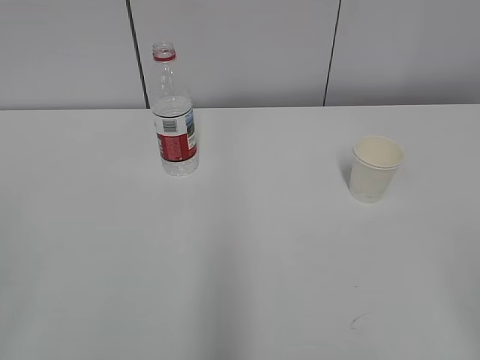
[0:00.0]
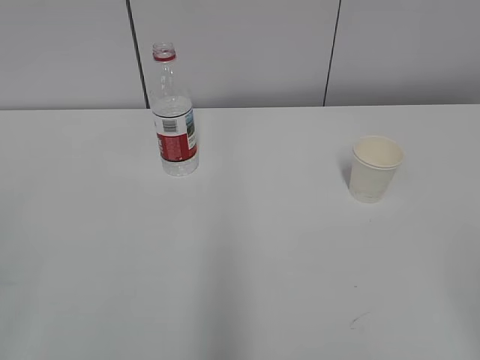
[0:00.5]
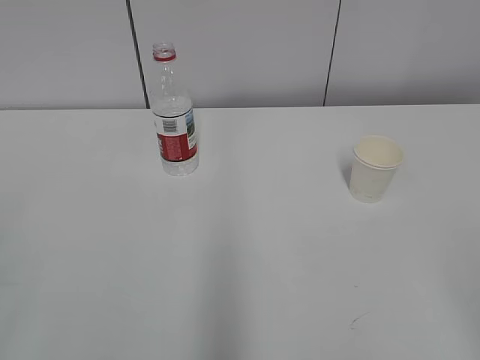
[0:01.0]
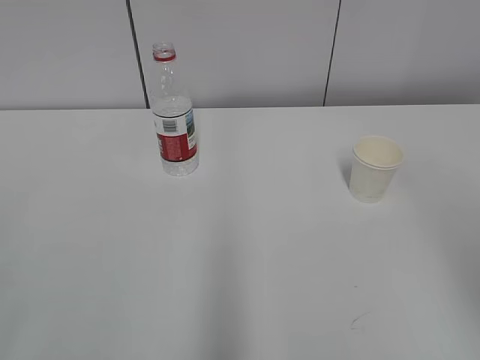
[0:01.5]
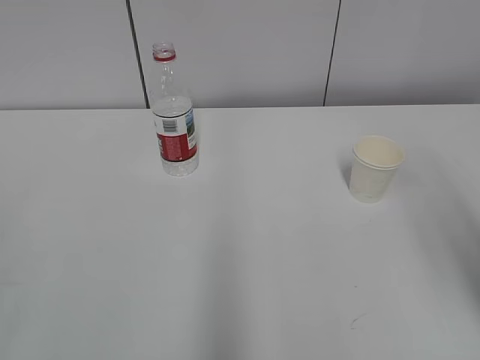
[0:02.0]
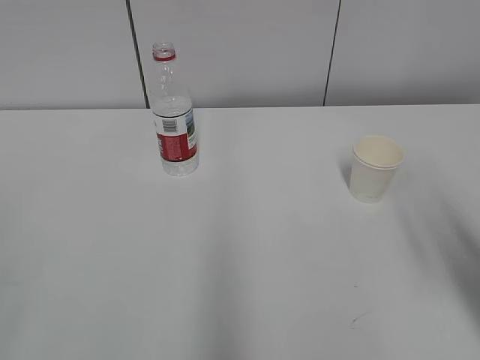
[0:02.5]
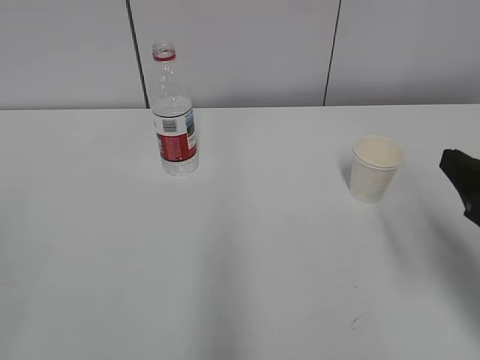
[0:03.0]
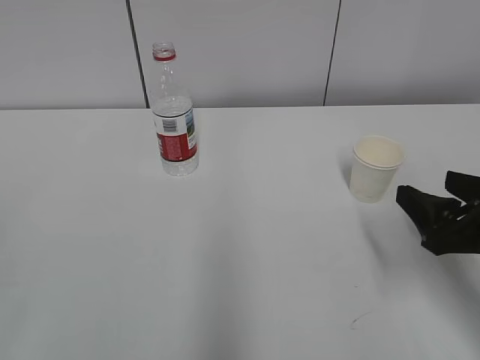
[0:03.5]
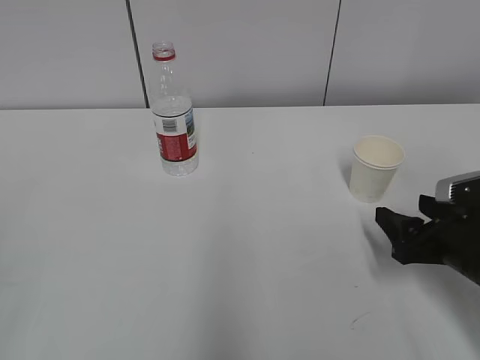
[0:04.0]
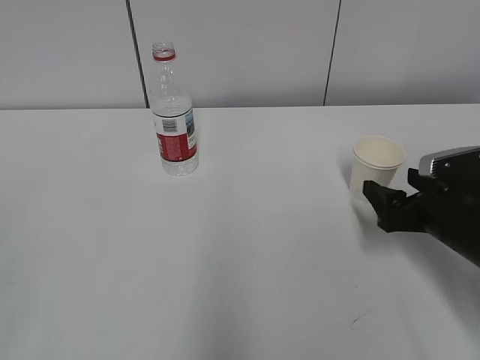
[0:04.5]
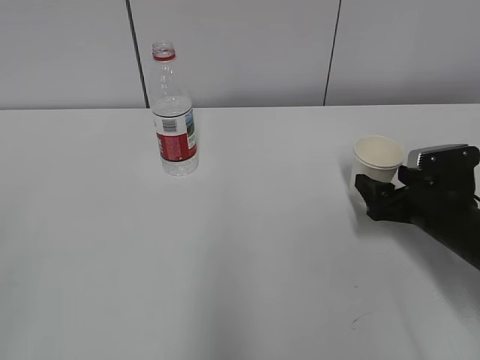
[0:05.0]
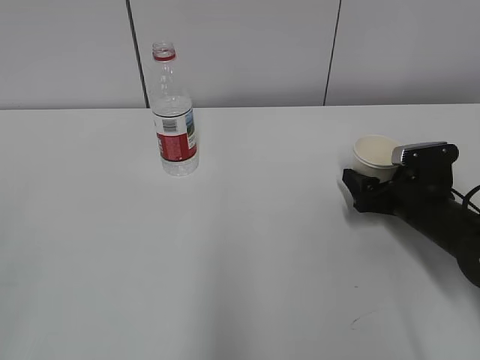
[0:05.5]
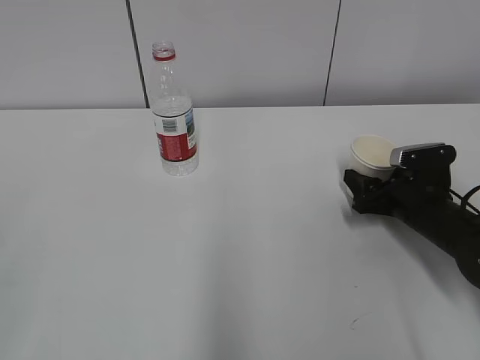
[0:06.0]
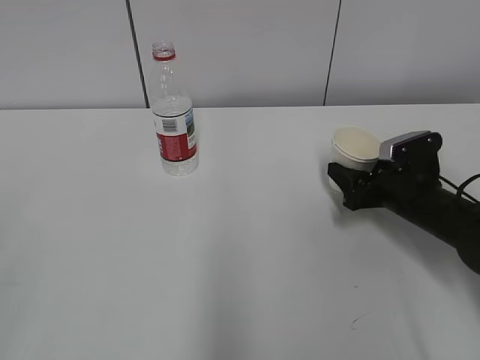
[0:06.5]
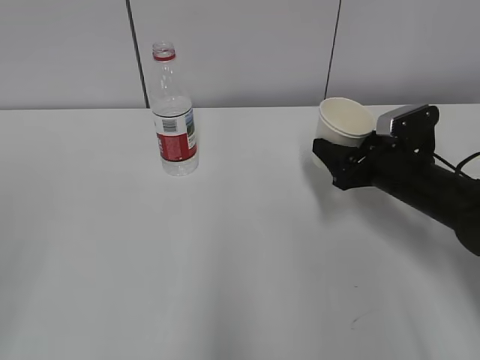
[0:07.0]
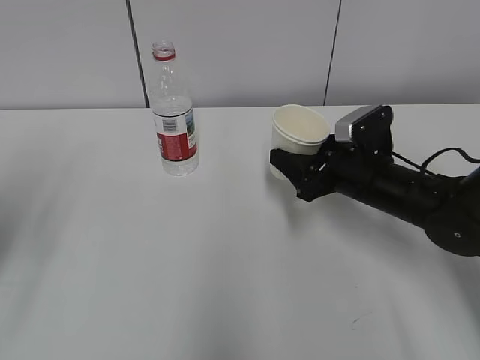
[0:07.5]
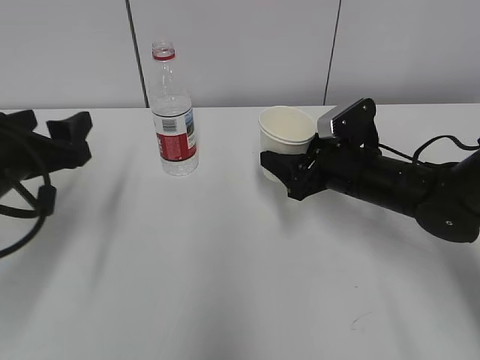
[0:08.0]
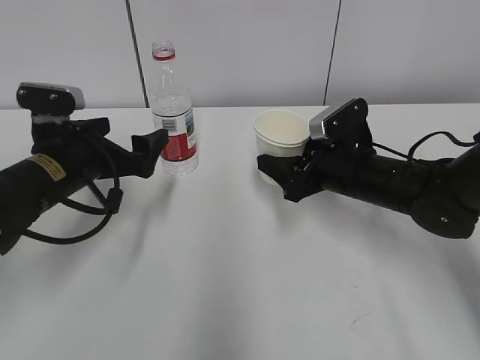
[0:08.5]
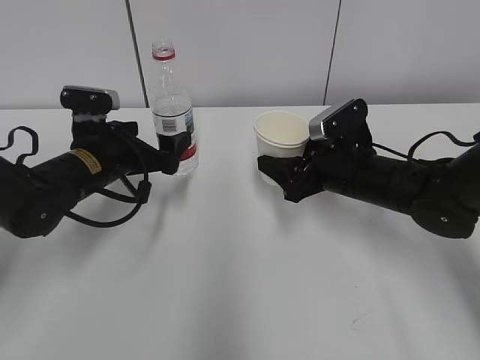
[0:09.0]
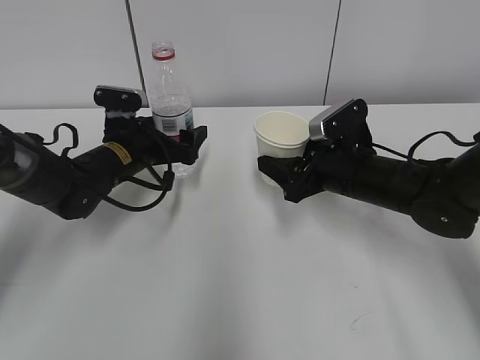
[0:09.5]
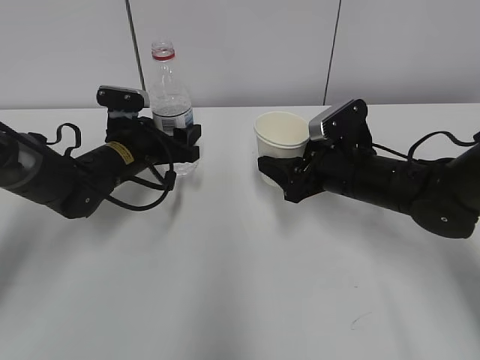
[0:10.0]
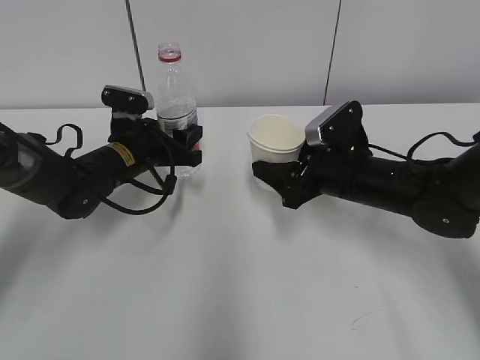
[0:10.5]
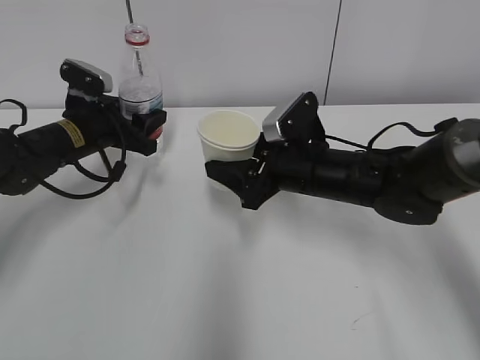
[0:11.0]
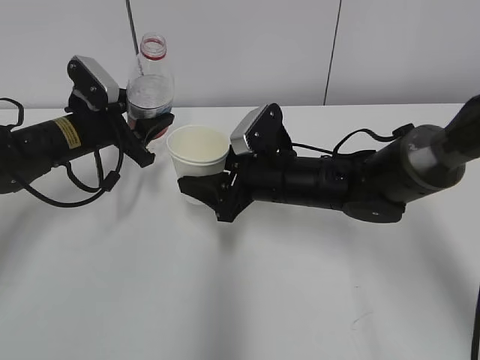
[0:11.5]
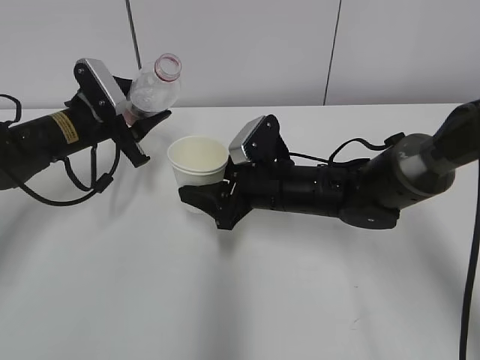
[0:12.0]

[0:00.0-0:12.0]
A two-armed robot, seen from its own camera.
Step, 0:00.0 to 0:05.0: Grab the paper cup with the right hand.
Step, 0:05.5 to 0:08.0: Grab the water bottle with the left hand.
Step, 0:08.5 to 0:11.5: Lift the paper cup with the right hand.
0:02.0 to 0:04.0: The right gripper heads downward and forward, covering about 25 cm.
0:04.0 to 0:06.0: The right gripper travels forward by roughly 10 cm, and closes.
0:06.0 to 0:08.0: The right gripper goes roughly 10 cm to the left and upward. Meanwhile the left gripper is displaced forward by roughly 30 cm.
0:08.0 to 0:10.0: The left gripper is displaced forward, downward and to the right by roughly 20 cm, and opens and closes again.
0:10.0 to 0:12.0: The left gripper shifts some 5 cm to the left. Meanwhile the right gripper heads to the left, covering roughly 10 cm.

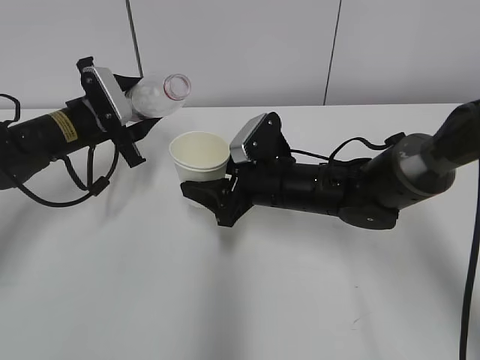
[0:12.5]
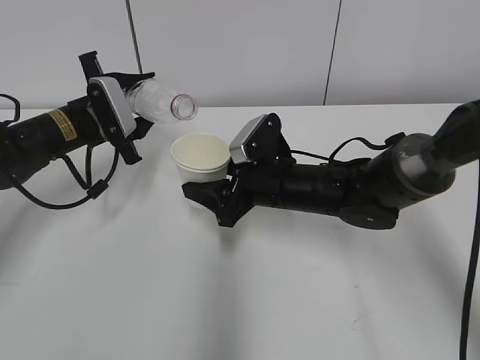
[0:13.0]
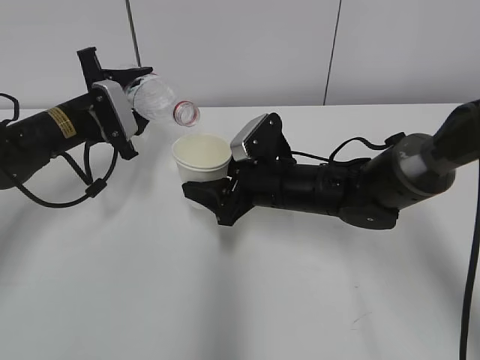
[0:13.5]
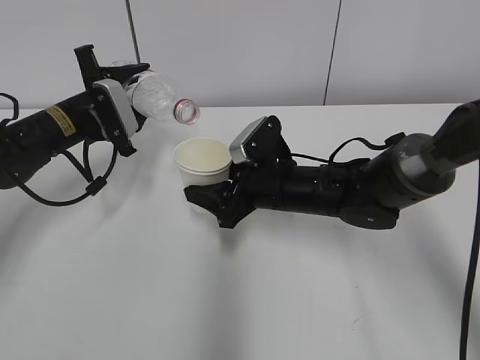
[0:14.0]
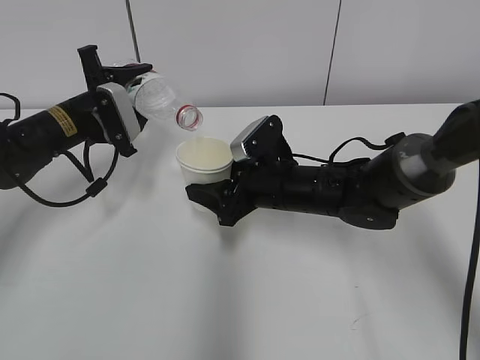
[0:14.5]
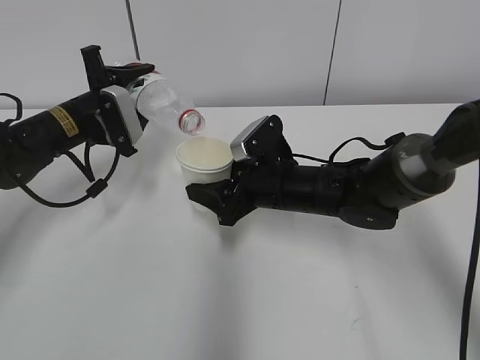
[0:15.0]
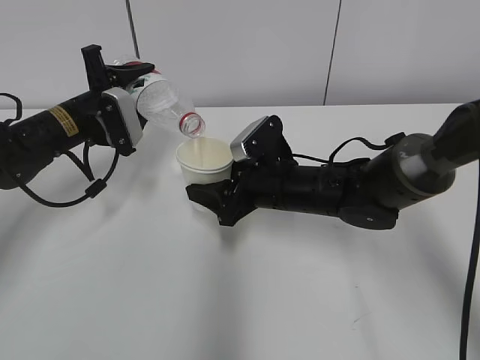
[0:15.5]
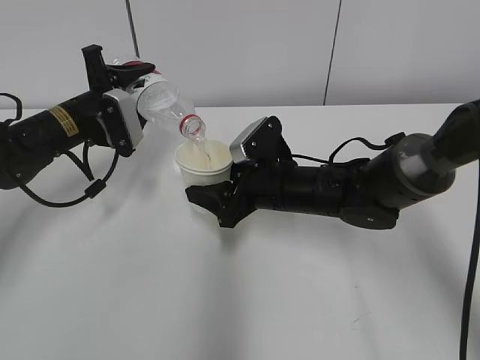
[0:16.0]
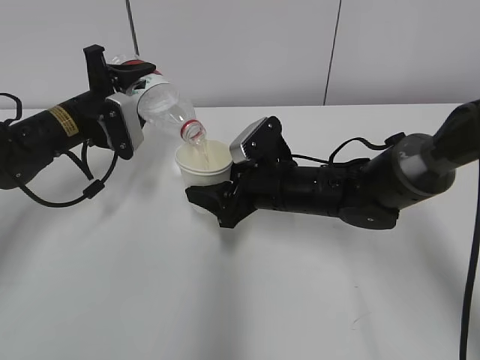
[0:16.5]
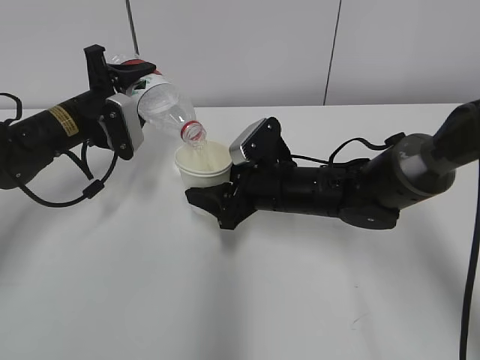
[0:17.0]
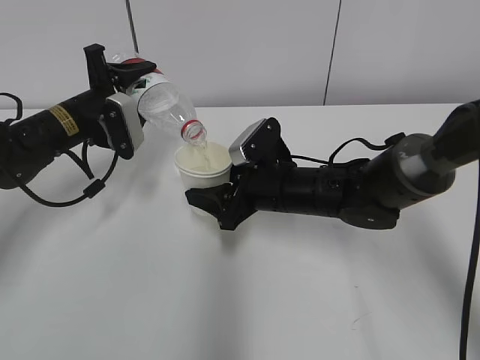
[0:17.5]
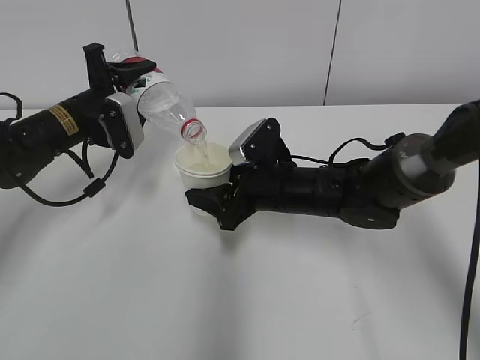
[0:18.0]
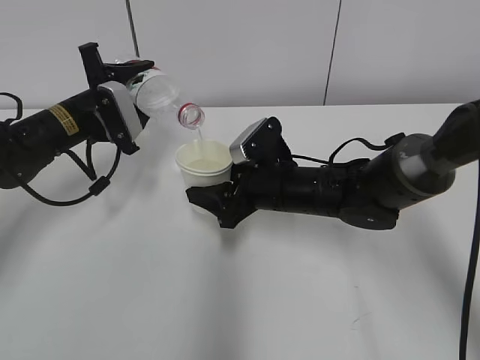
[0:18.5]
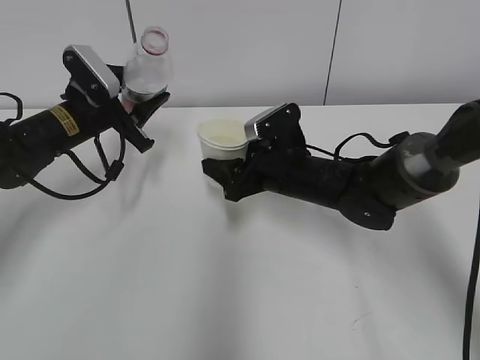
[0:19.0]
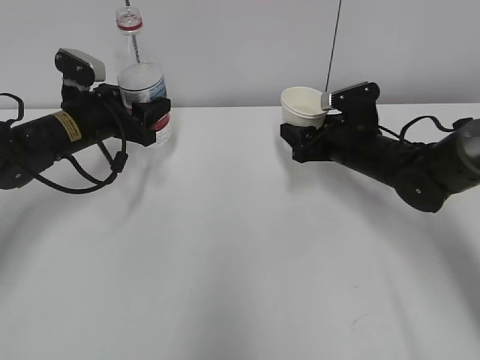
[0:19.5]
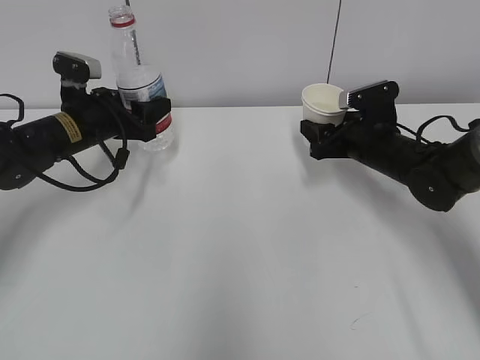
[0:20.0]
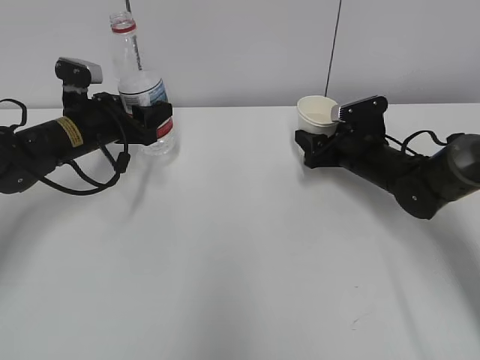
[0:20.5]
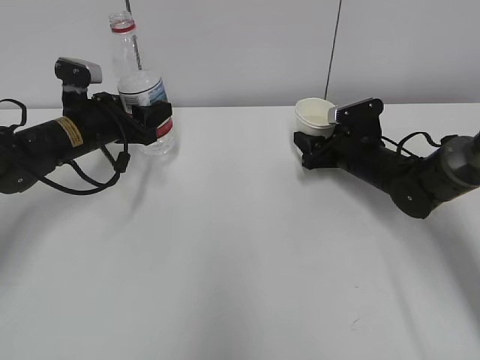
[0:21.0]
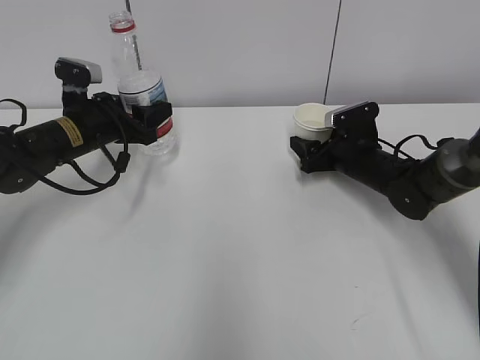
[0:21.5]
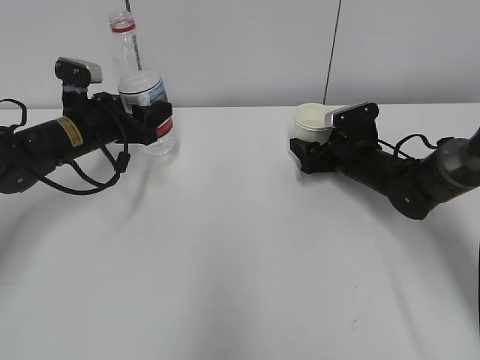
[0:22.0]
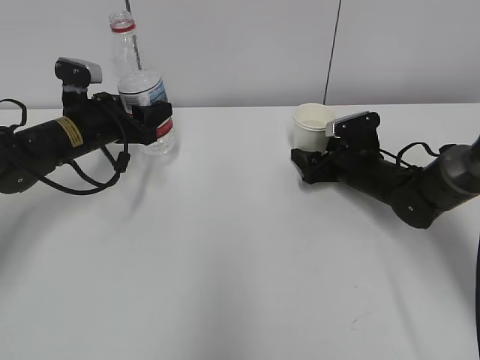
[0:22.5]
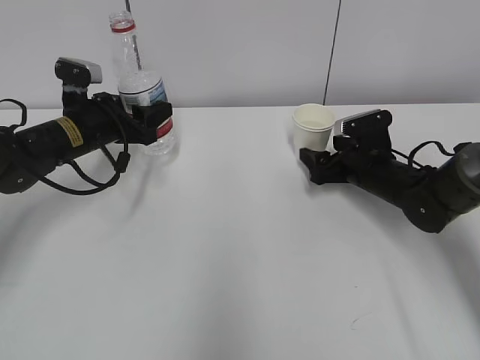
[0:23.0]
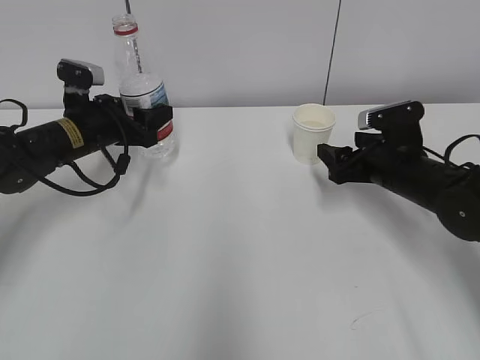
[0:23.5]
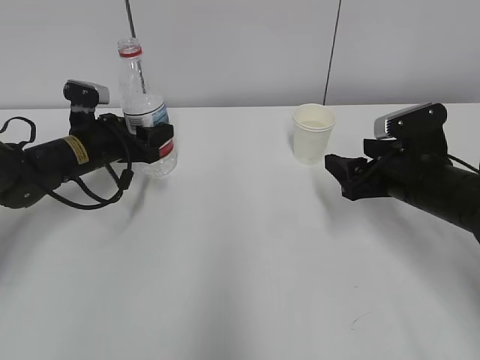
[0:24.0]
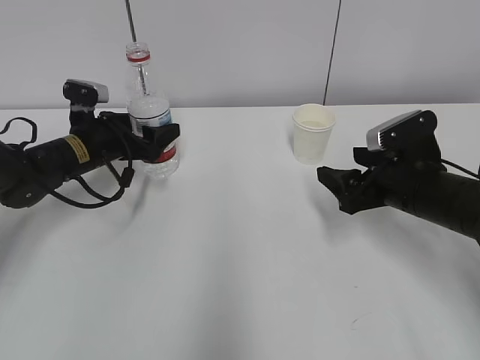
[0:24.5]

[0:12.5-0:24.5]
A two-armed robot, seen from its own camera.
Step, 0:12.5 to 0:15.5: Fill water with the right hand.
Step, 0:12.5 to 0:15.5: Pour water with the left hand.
0:14.5 to 0:18.5: The grippers move only a little.
0:18.5 to 0:20.5: The right gripper goes roughly 15 cm to the right and forward.
0:20.5 to 0:22.5: The right gripper opens its fingers.
0:22.5 to 0:24.5: The left gripper opens up, while the right gripper is displaced backward and upward by roughly 15 cm.

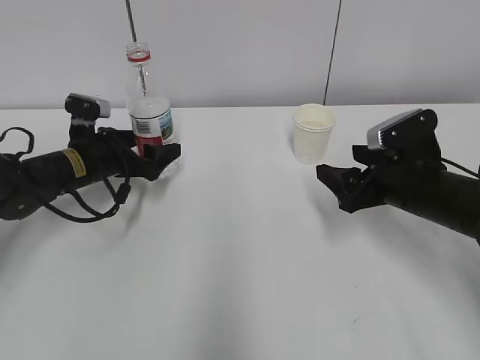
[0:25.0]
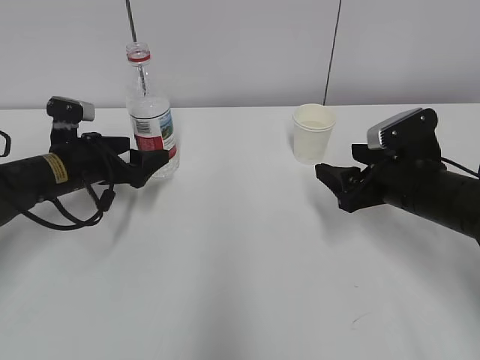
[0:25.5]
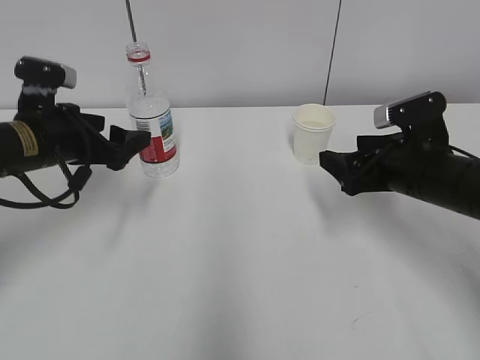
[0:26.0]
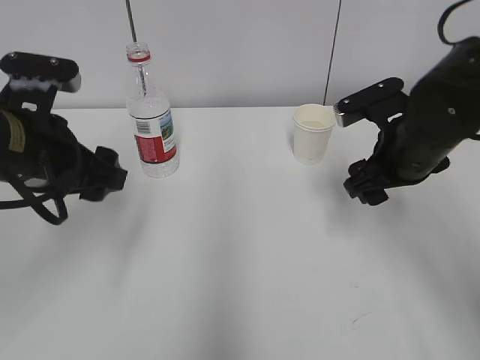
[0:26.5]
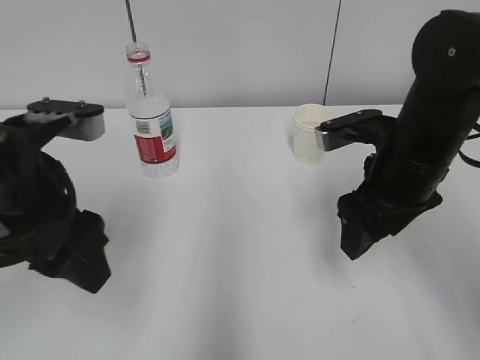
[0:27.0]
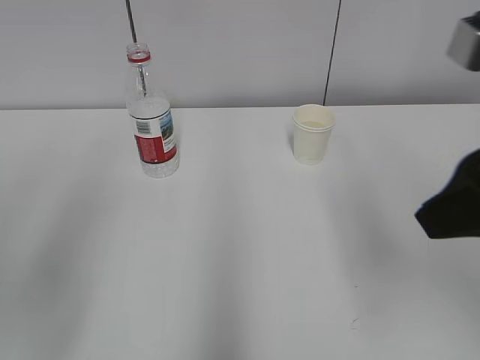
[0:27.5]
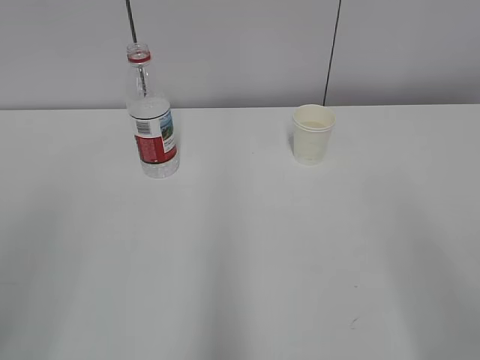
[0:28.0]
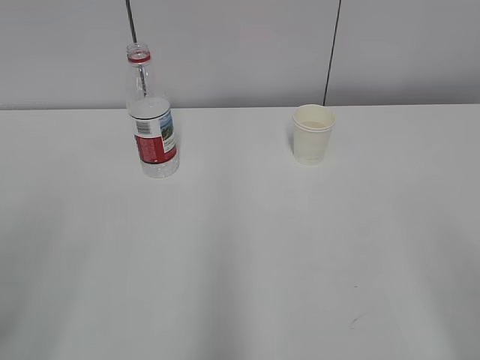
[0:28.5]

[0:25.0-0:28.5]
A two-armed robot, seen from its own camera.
0:25.0 to 0:27.0: The left gripper goes some 25 cm backward and upward, and closes up. Meanwhile the right gripper moves upward, approximately 10 cm.
0:27.0 to 0:28.5: The left gripper shifts some 20 cm backward and to the left. Meanwhile the right gripper moves backward, some 25 cm.
